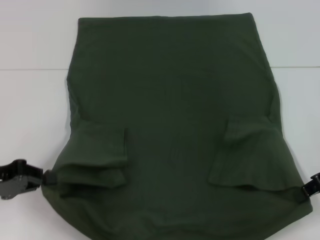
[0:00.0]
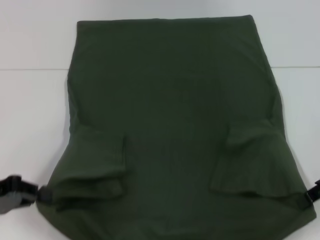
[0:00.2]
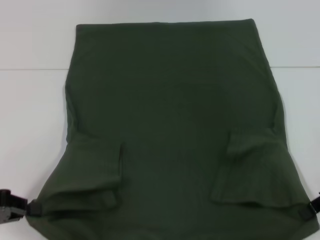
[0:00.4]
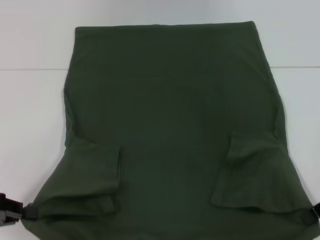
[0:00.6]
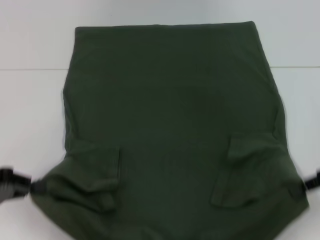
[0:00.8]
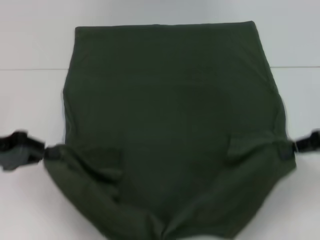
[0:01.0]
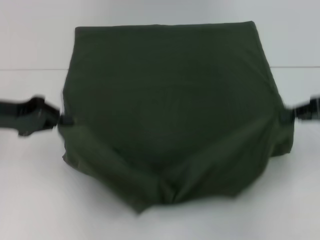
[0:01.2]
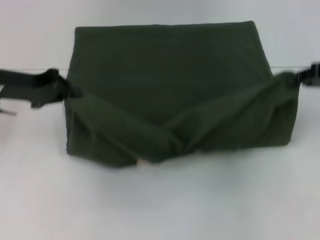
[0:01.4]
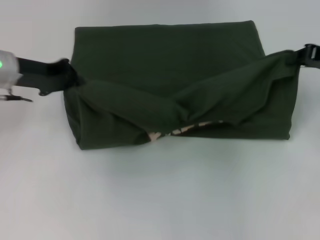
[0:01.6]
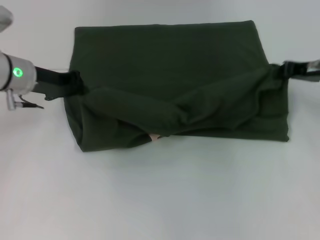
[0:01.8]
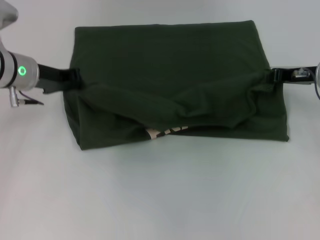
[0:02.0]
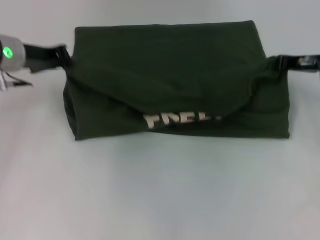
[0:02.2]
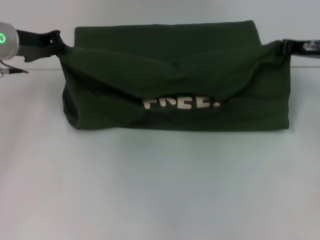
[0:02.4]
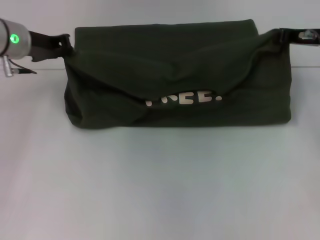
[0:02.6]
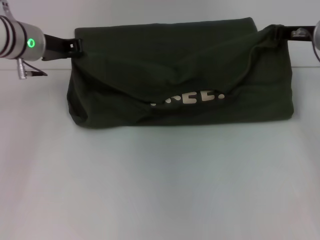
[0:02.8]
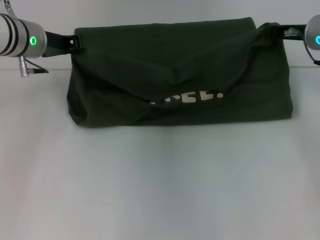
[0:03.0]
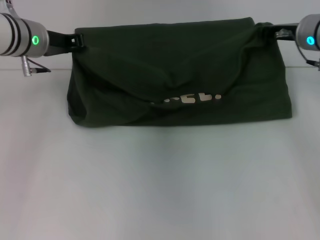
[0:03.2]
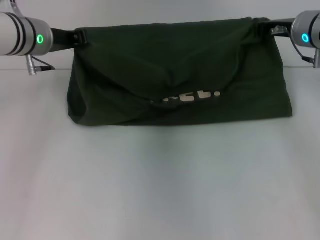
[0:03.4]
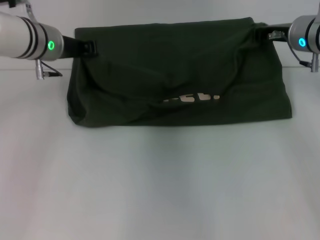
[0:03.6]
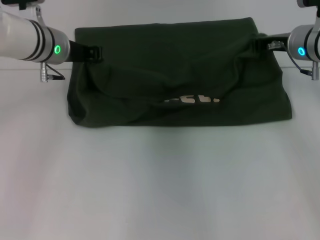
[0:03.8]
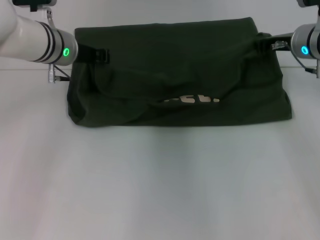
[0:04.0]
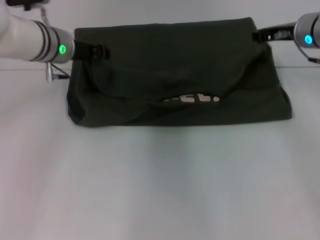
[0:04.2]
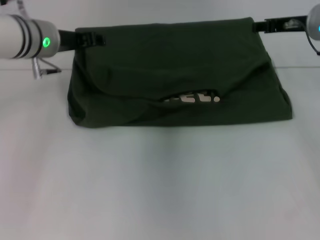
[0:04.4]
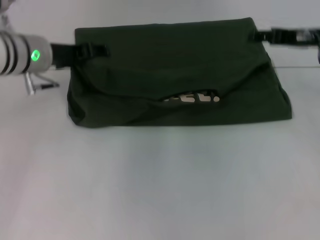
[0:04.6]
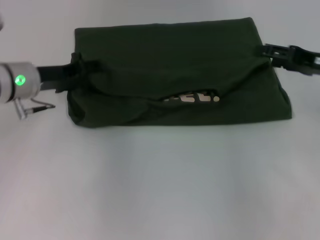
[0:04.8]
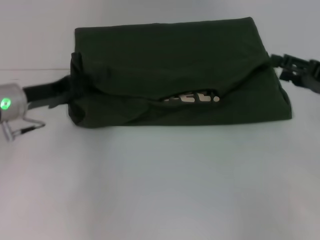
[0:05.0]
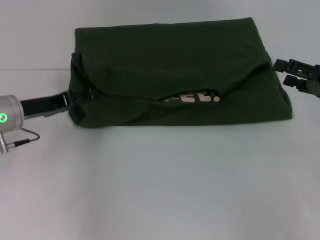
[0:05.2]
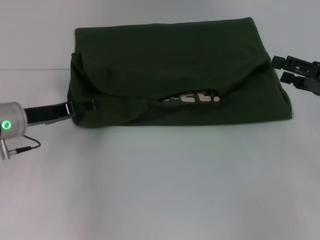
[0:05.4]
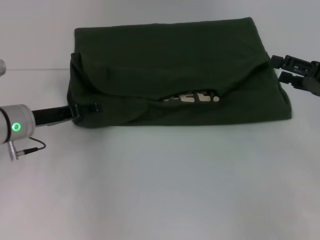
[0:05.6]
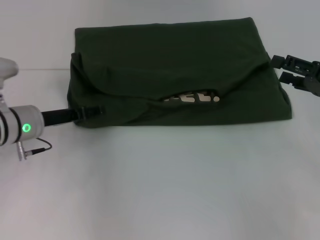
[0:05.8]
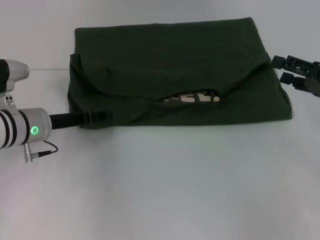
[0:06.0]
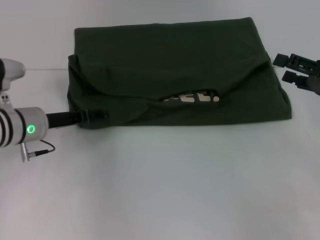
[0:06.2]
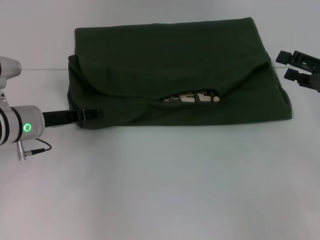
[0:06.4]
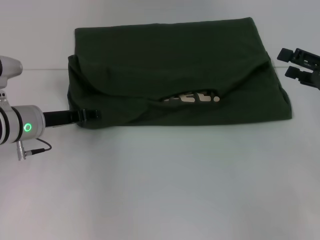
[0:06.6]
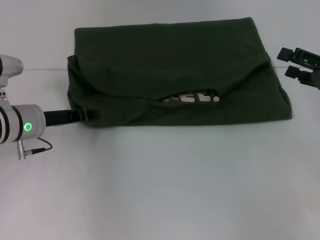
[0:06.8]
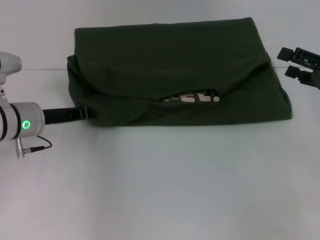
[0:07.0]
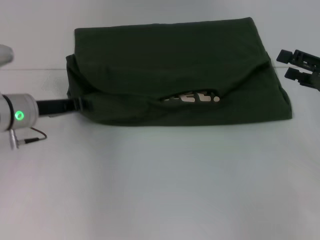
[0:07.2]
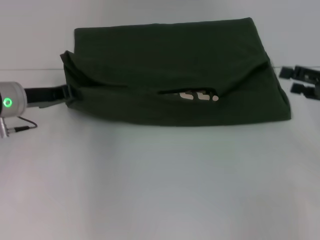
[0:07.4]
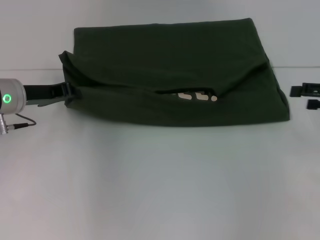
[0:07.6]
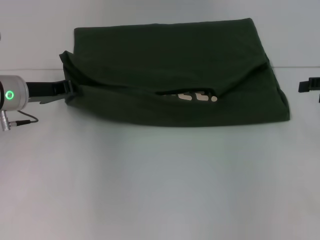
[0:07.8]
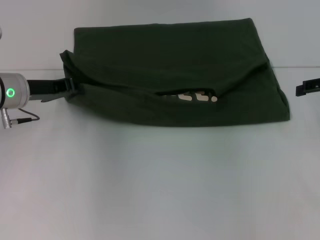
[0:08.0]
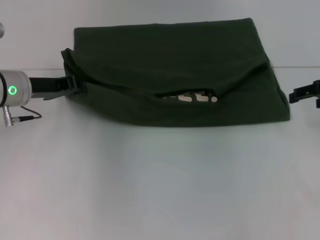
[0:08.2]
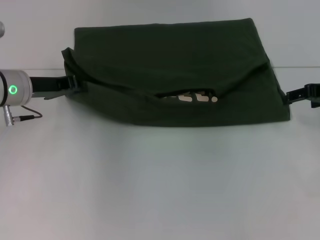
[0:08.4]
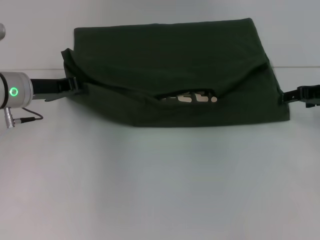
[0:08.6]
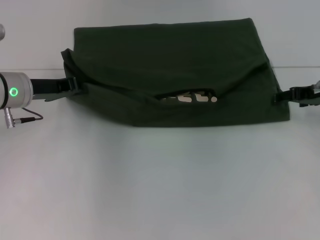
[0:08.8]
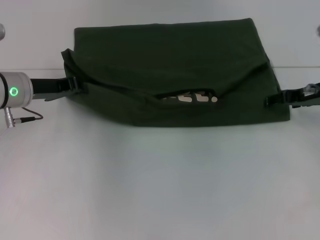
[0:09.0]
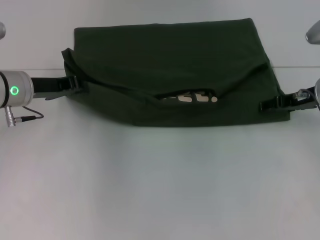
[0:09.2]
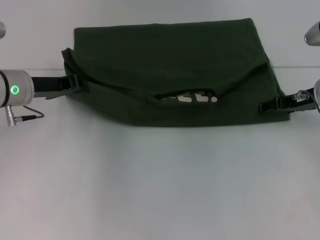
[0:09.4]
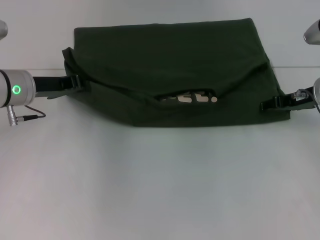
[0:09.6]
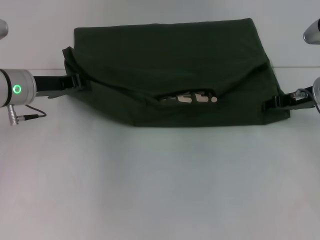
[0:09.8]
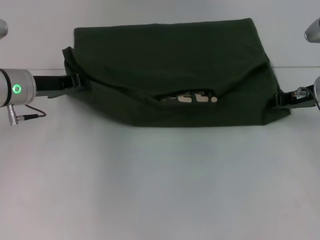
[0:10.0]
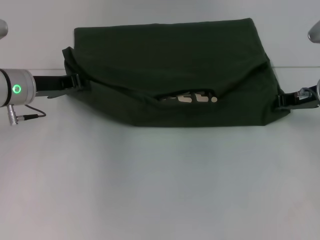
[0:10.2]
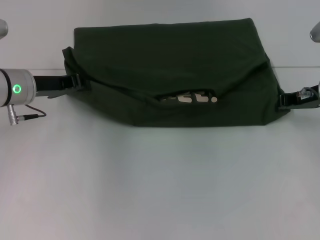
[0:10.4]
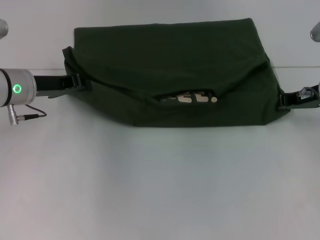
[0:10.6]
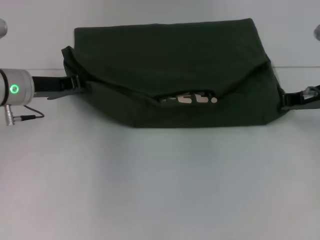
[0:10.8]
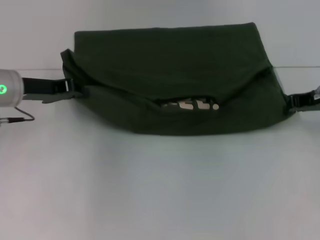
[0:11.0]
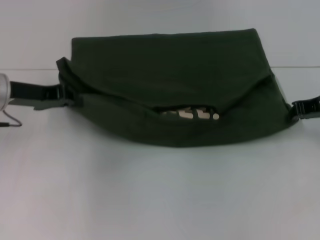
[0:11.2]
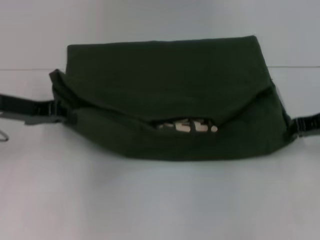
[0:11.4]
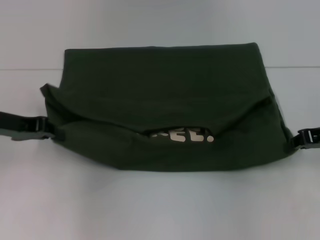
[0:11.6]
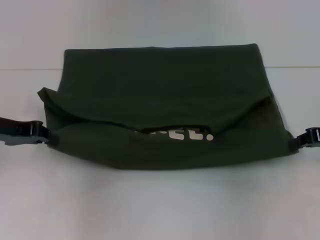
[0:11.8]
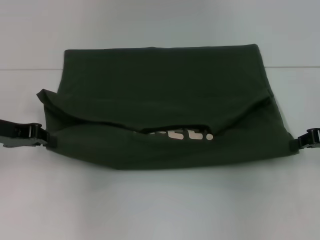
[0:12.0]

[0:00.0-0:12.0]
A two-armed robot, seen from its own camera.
Step, 0:00.0 to 0:04.2: Fold the clothes with your left hand.
Step, 0:00.0 to 0:04.2: Fold the clothes with your right hand.
0:00.0 to 0:01.6: The right gripper goes some 10 cm forward; the left gripper moves forward and to the right, roughly 15 cm.
0:01.6 to 0:03.0: The left gripper ends up about 5 cm from where it was, while the right gripper shifts some 10 cm to the left and forward.
0:03.0 to 0:04.4: The left gripper opens up. Meanwhile the right gripper opens.
0:04.4 to 0:06.0: The left gripper goes about 15 cm downward and backward, and opens up. The right gripper moves backward, to the right and downward, roughly 15 cm, and opens its fingers.
0:06.0 to 0:07.6: The left gripper ends up approximately 5 cm from where it was, and closes its fingers.
0:07.6 to 0:09.0: The right gripper goes approximately 10 cm to the left and forward.
0:09.0 to 0:10.4: The right gripper closes its fingers.
0:10.4 to 0:12.0: The right gripper travels backward and to the right by some 10 cm. The left gripper is displaced to the left and backward by roughly 10 cm.

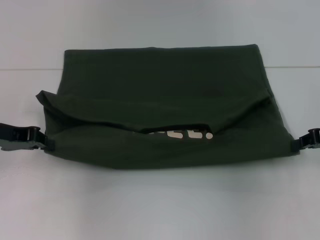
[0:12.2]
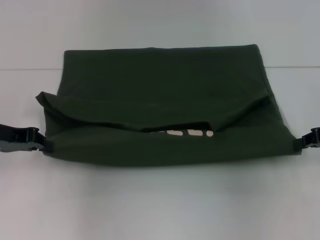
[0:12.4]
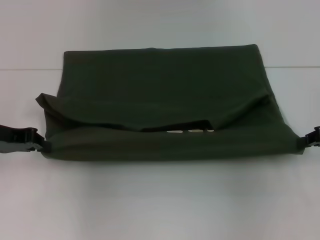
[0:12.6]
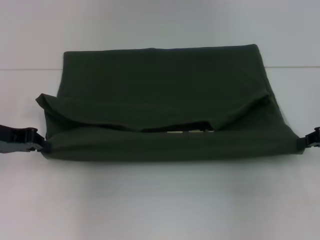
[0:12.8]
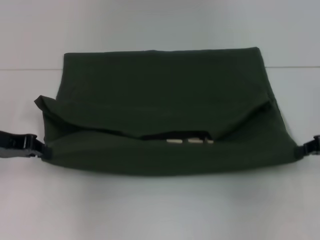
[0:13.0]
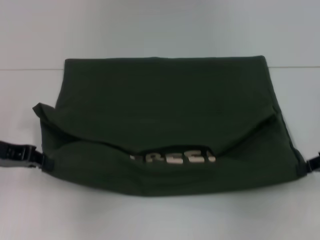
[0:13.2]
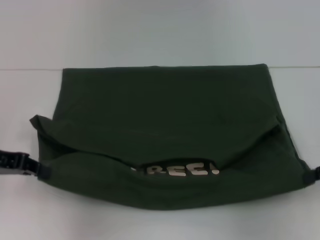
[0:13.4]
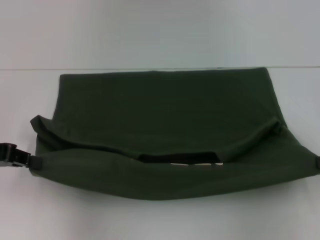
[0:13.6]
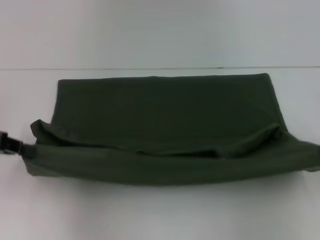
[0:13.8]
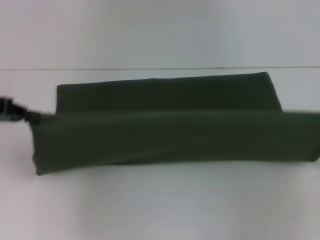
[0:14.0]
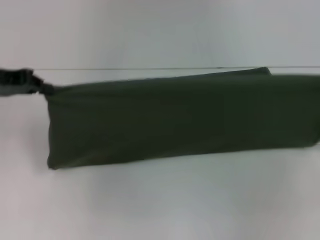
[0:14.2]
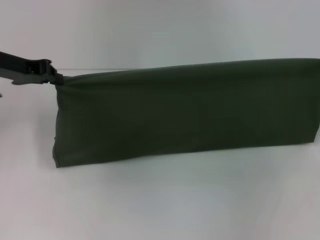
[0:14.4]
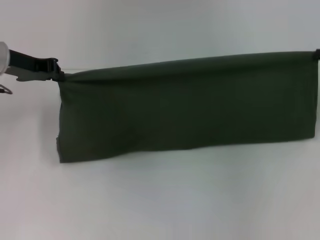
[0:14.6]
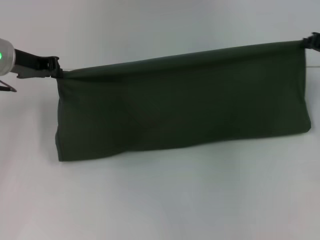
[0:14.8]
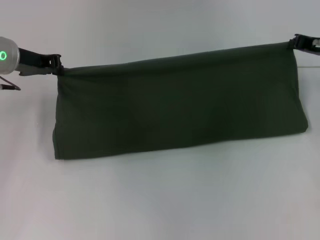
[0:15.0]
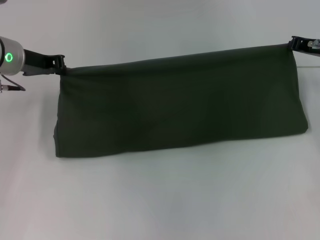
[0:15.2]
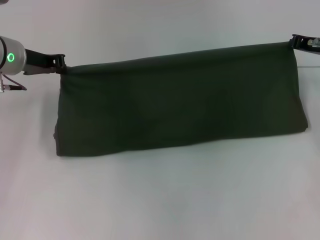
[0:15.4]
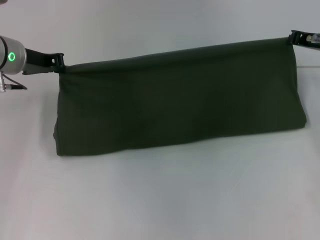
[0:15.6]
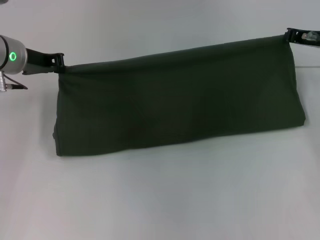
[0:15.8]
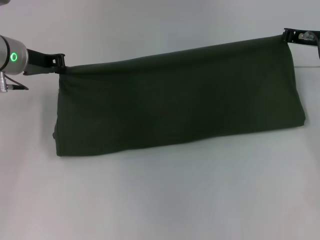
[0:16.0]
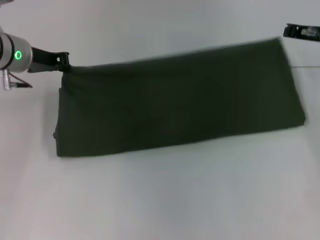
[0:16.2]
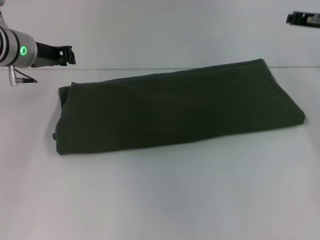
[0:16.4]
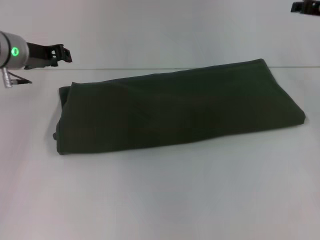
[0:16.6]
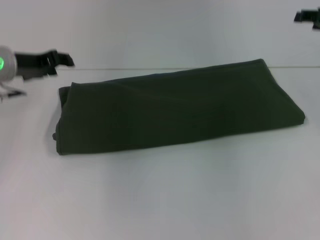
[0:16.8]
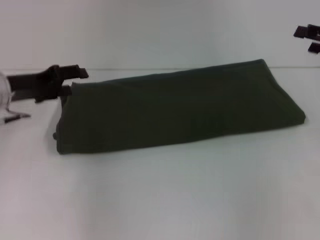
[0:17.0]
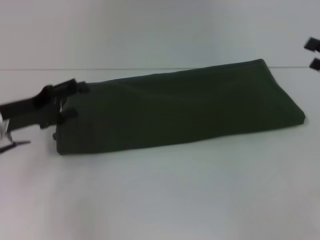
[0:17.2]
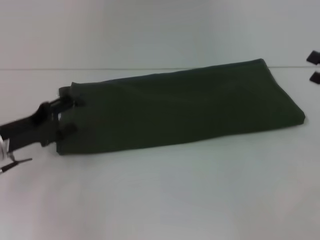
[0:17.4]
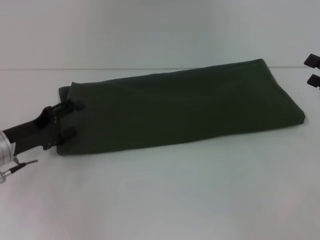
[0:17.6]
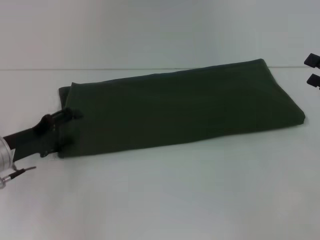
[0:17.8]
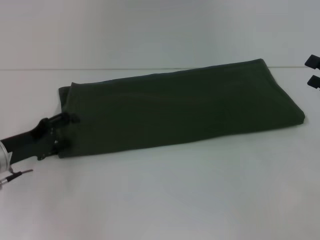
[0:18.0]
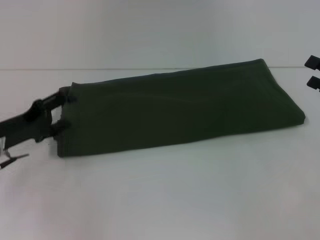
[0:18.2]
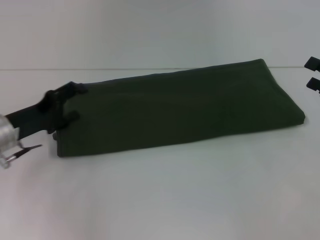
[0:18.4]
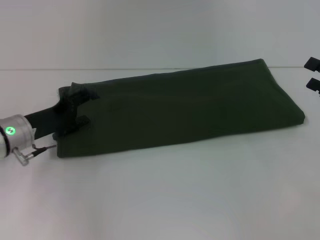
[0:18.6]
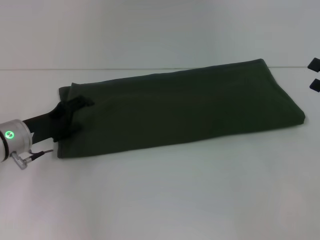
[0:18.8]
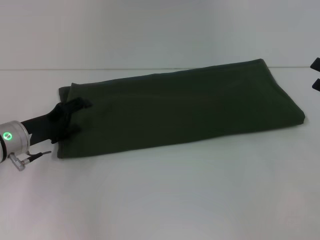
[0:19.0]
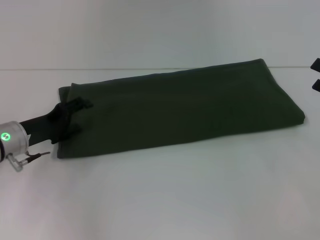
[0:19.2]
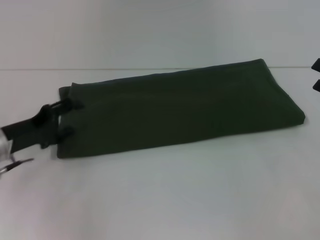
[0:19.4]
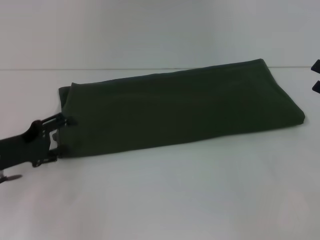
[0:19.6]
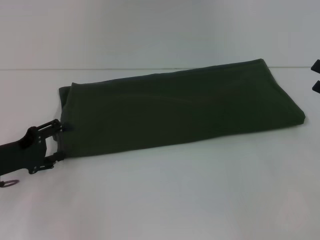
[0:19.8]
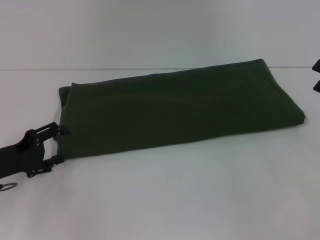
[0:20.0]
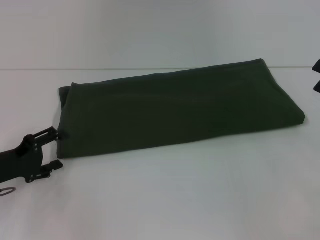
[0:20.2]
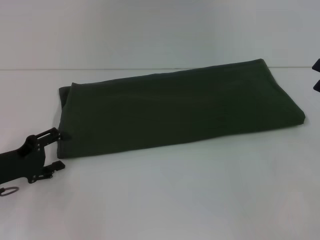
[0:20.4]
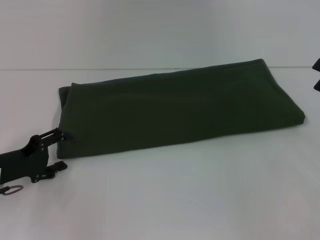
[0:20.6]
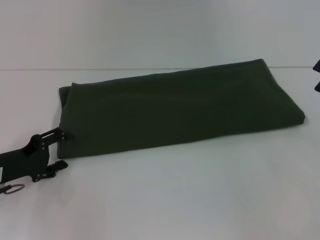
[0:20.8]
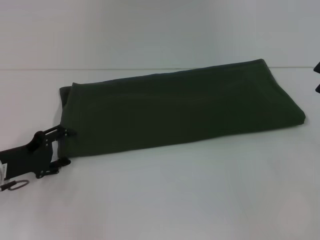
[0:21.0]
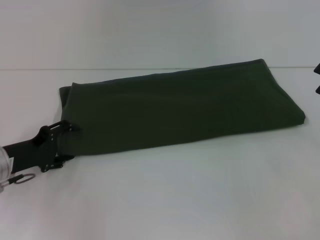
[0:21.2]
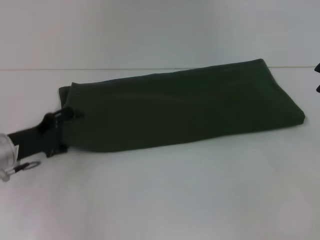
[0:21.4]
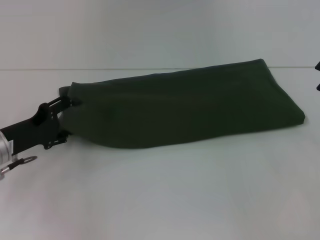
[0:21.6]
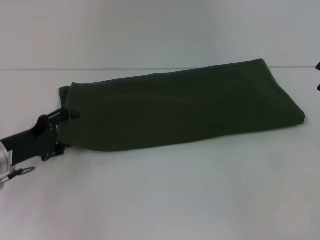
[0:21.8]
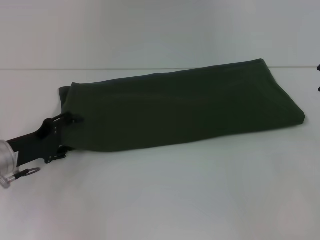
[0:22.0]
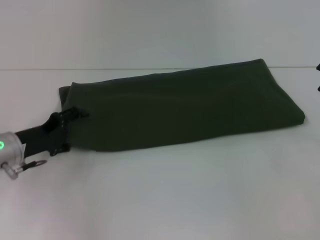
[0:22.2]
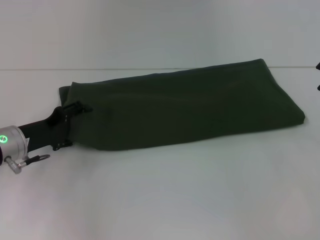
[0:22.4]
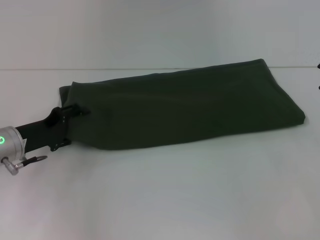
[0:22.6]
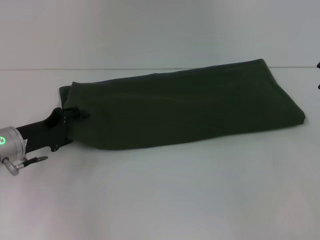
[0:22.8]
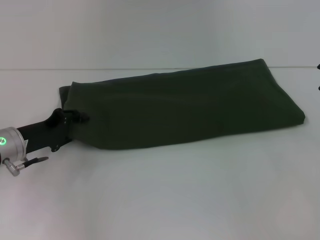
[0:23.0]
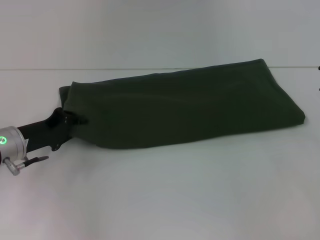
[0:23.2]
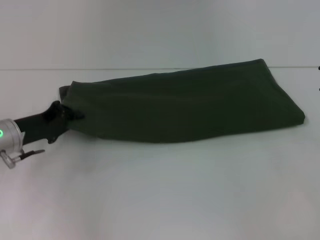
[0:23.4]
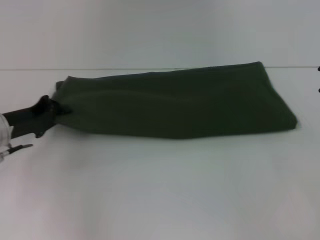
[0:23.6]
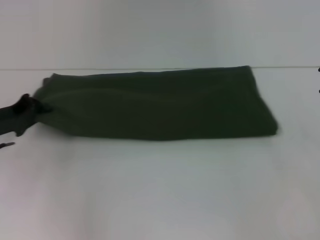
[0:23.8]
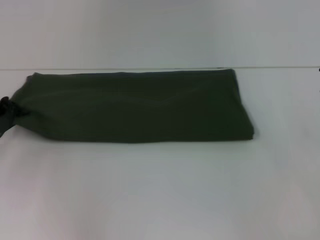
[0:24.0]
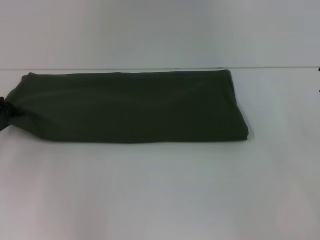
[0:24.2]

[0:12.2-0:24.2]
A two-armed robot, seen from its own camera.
Step, 0:13.4 to 0:16.2: Fold the clothes with your right hand.
0:12.2 to 0:13.8: The right gripper ends up roughly 10 cm from where it was. Meanwhile the left gripper shifts by some 5 cm.
0:13.8 to 0:15.2: The right gripper shifts roughly 20 cm forward and to the left, while the left gripper travels forward and to the right by approximately 15 cm.
0:15.2 to 0:16.6: The right gripper moves upward, about 5 cm.
0:16.6 to 0:18.2: Both grippers travel together backward and downward, about 15 cm. The right gripper opens. Meanwhile the left gripper opens up.
0:18.2 to 0:22.6: The grippers stay close to where they were, moving slightly.
0:22.6 to 0:24.2: The left gripper shifts roughly 10 cm to the left, and closes its fingers.
